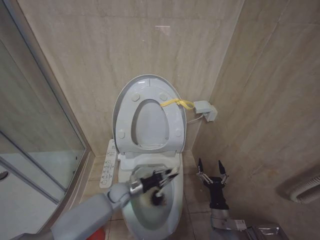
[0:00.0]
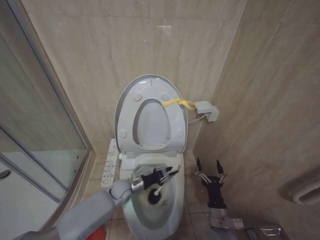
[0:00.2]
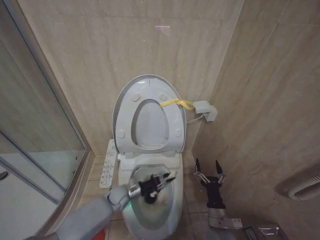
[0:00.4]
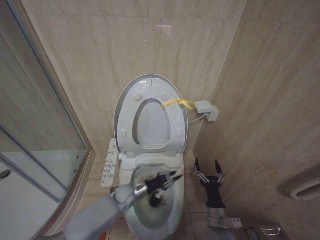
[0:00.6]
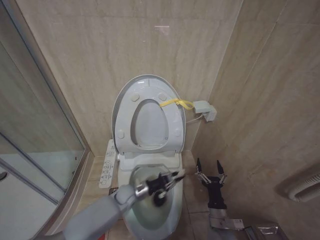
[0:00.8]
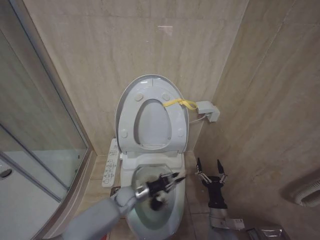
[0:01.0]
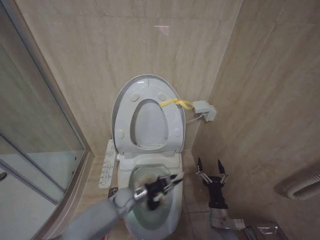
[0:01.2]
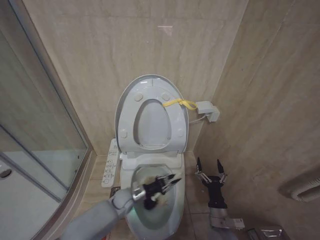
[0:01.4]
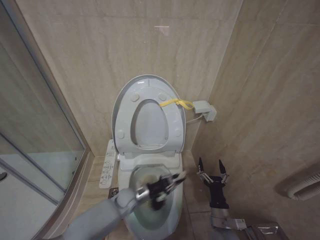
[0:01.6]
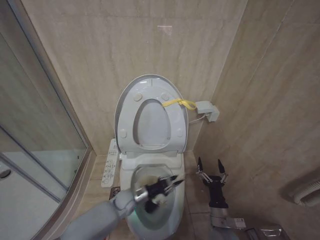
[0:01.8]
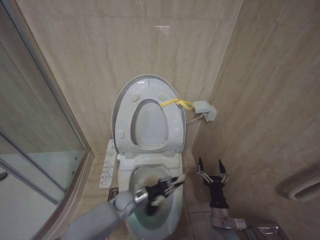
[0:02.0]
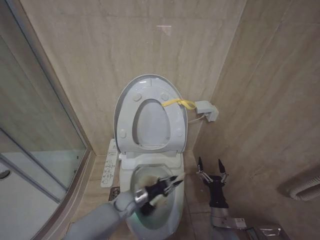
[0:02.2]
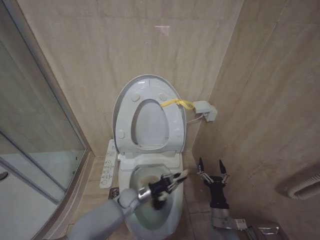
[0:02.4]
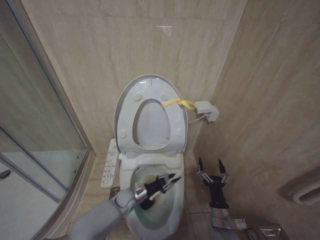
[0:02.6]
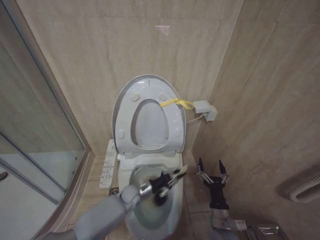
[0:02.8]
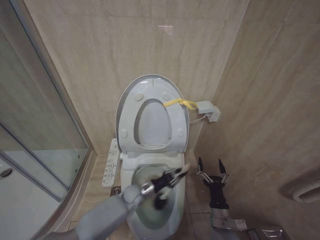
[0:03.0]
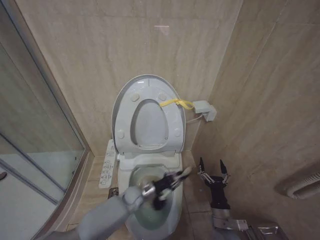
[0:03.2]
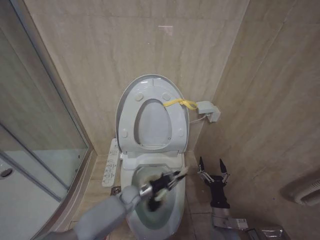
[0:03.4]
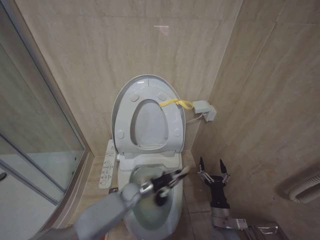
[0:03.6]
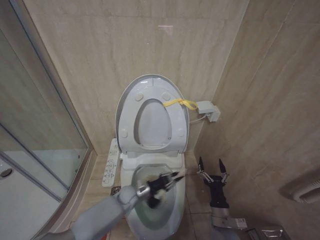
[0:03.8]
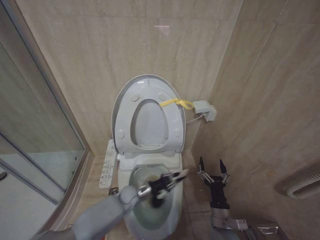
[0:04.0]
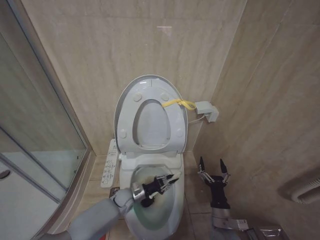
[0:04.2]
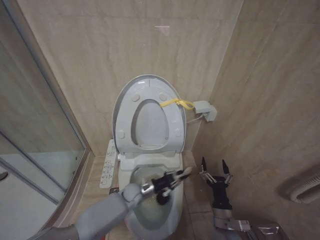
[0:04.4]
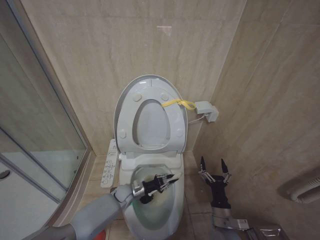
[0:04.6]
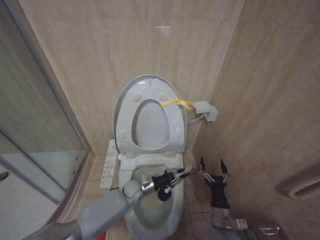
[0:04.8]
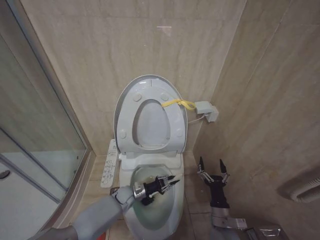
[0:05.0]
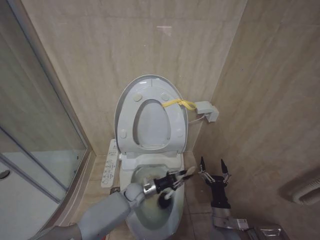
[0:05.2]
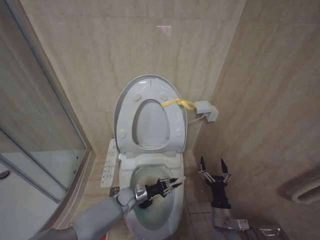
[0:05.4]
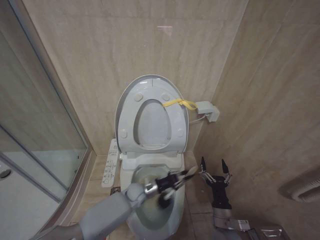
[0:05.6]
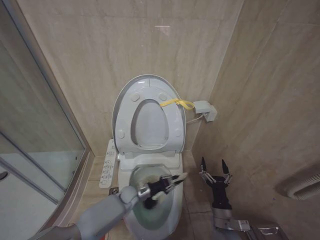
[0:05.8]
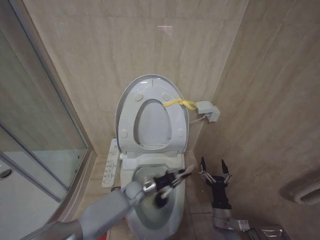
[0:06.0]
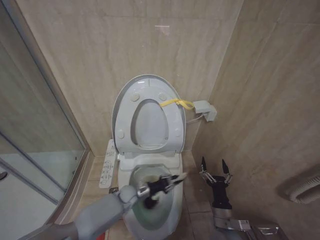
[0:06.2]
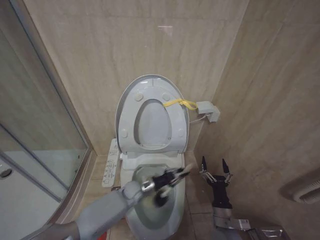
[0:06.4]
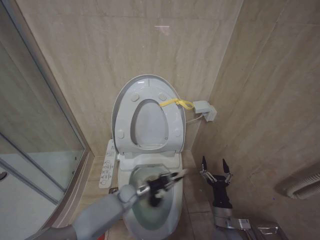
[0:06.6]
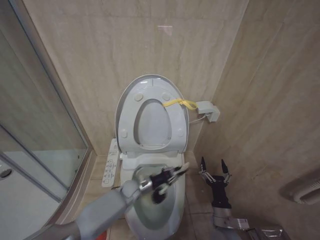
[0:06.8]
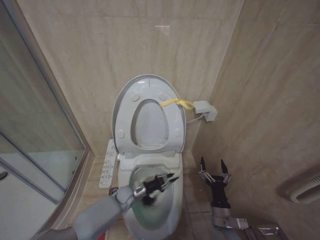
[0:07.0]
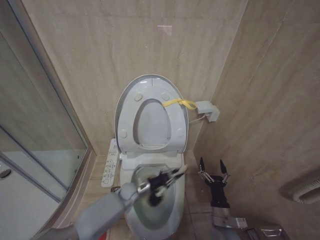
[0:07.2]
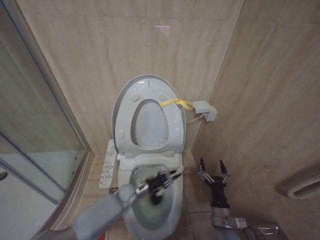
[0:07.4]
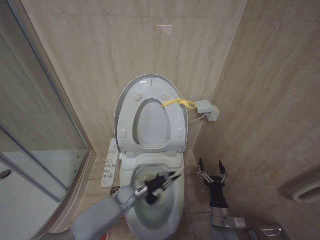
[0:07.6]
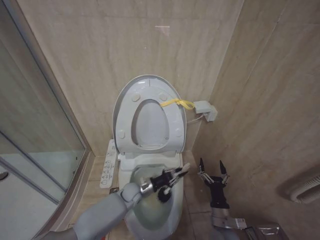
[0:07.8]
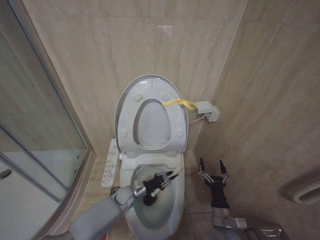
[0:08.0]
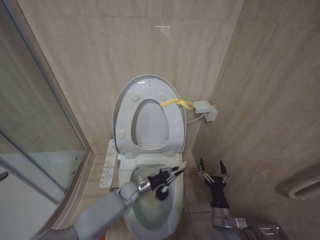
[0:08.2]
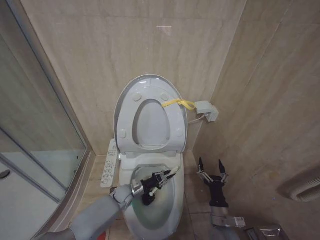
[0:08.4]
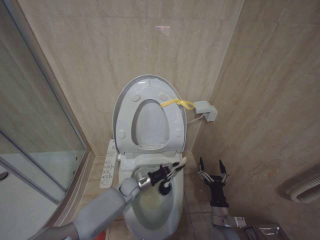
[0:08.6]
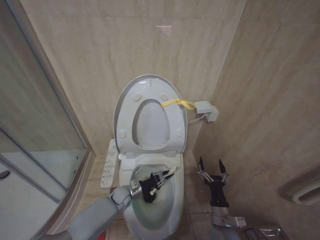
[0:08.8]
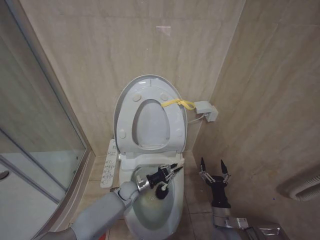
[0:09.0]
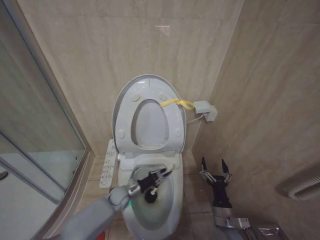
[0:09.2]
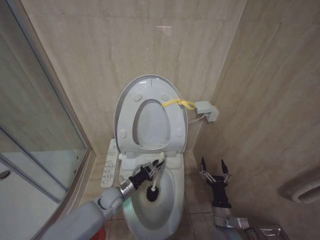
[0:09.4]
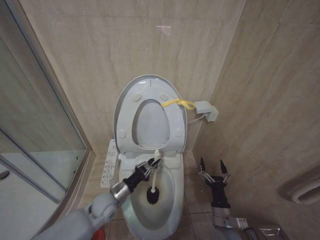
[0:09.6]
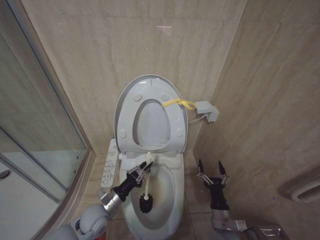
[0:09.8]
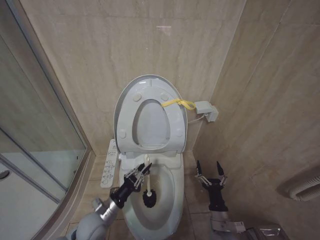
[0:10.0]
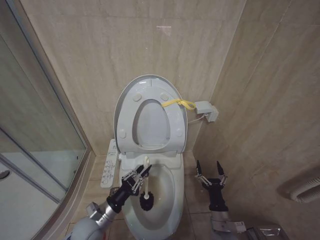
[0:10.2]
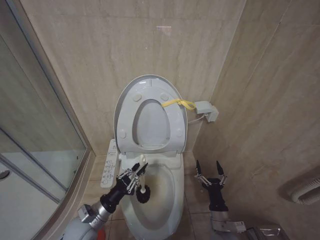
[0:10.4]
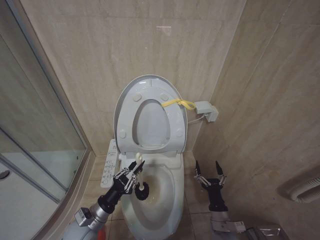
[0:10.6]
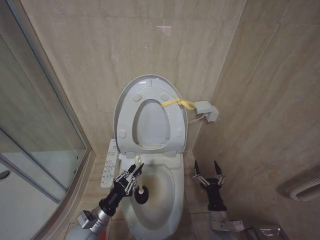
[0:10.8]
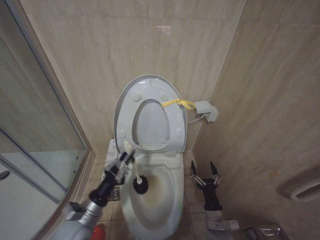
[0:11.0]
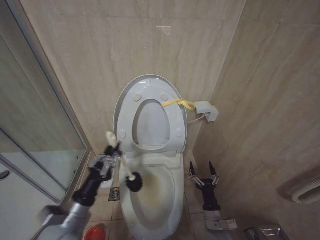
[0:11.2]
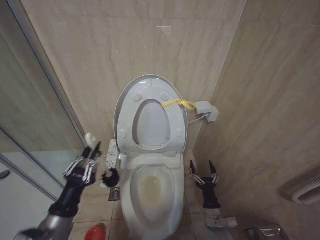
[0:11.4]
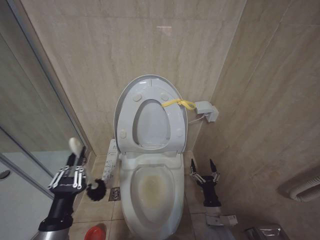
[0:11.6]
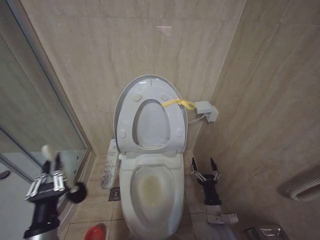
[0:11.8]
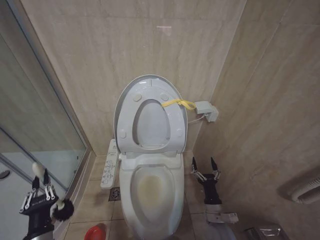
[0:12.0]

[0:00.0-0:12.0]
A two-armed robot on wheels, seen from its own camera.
Task of the whole recording: Open the toilet lid, clean the toilet bowl with a toilet brush, close the toilet lid, and flush.
0:00.0 to 0:01.6: The left gripper moves left and right over some 5 cm, changing direction 2 times.
0:01.6 to 0:03.0: The left gripper swings up and down, roughly 5 cm each way, with 4 reversals.
0:03.0 to 0:04.4: The left gripper swings left and right, about 5 cm each way, with 6 reversals.
0:06.0 to 0:07.6: The left gripper swings left and right, some 5 cm each way, with 2 reversals.
0:07.6 to 0:09.0: The left gripper swings up and down, roughly 5 cm each way, with 5 reversals.
0:09.0 to 0:10.4: The left gripper travels backward, to the left and upward by about 20 cm.
0:10.4 to 0:12.0: The left gripper moves backward and upward, roughly 15 cm.

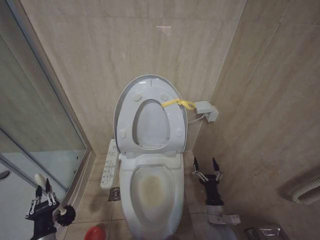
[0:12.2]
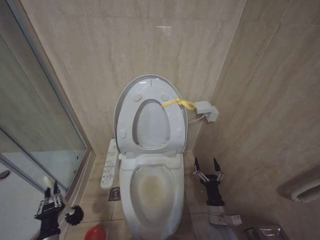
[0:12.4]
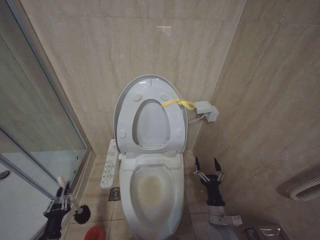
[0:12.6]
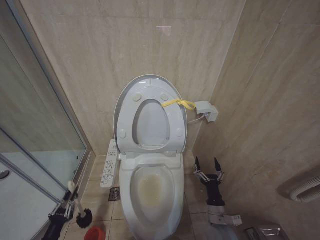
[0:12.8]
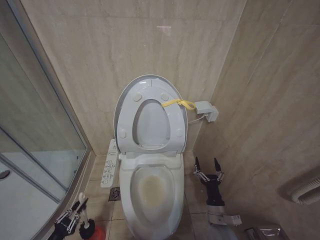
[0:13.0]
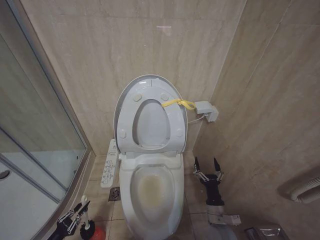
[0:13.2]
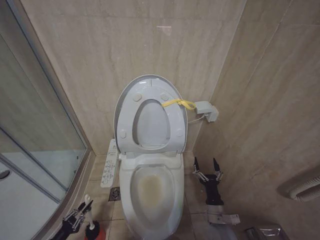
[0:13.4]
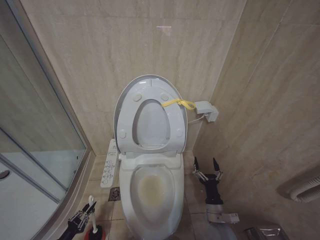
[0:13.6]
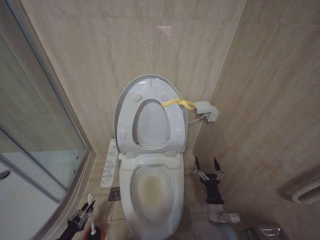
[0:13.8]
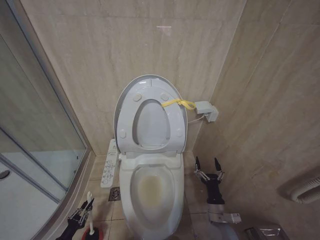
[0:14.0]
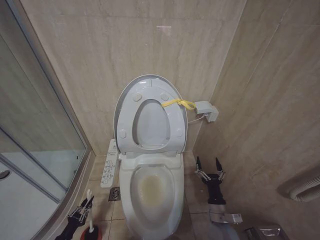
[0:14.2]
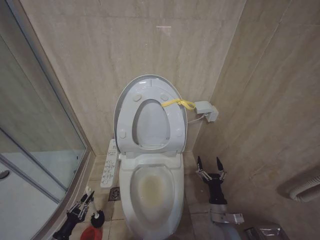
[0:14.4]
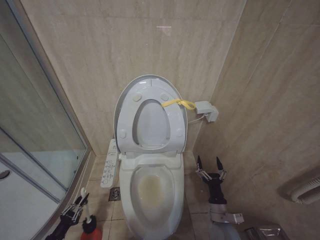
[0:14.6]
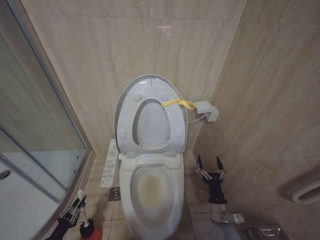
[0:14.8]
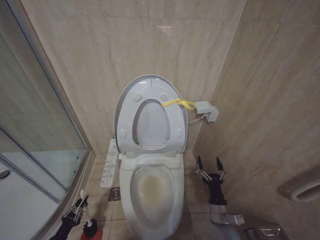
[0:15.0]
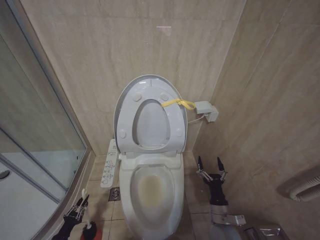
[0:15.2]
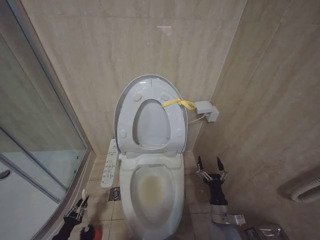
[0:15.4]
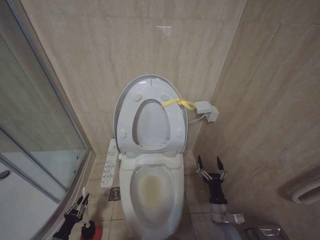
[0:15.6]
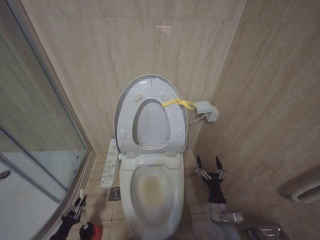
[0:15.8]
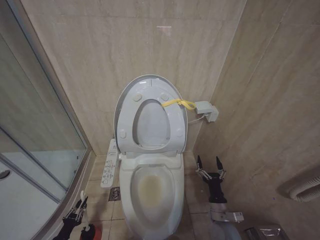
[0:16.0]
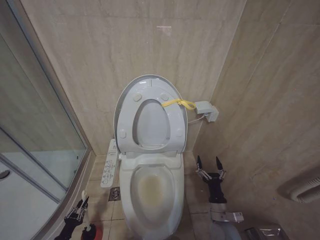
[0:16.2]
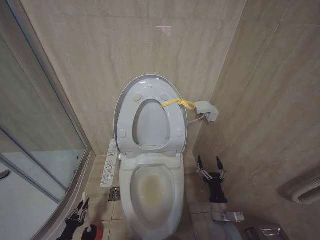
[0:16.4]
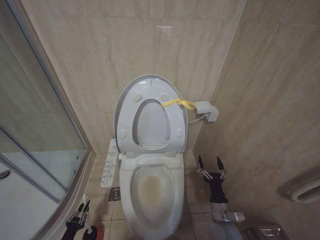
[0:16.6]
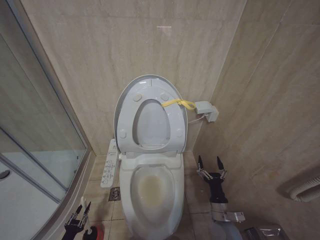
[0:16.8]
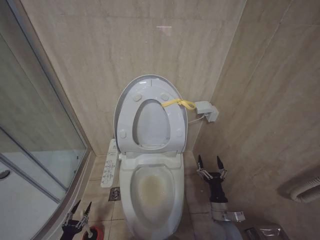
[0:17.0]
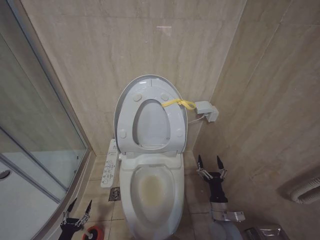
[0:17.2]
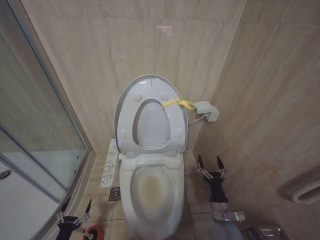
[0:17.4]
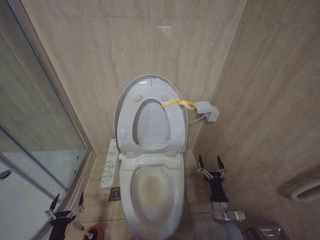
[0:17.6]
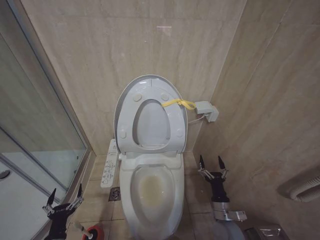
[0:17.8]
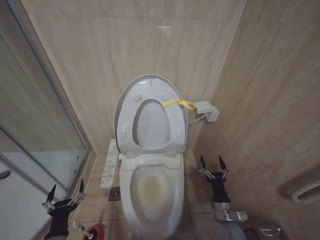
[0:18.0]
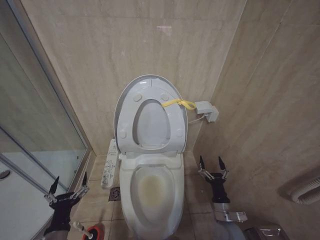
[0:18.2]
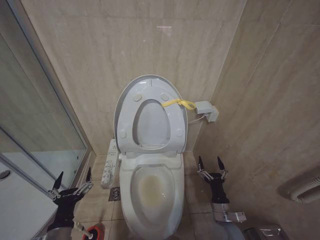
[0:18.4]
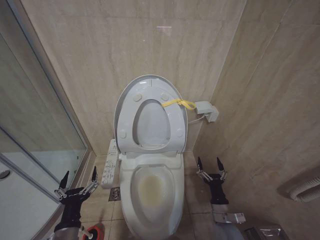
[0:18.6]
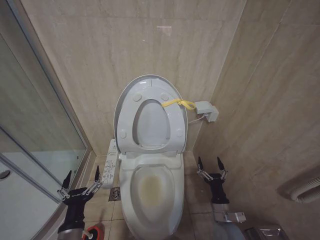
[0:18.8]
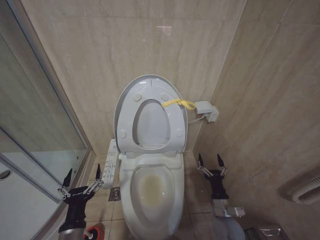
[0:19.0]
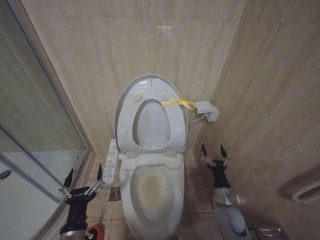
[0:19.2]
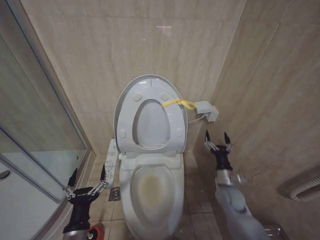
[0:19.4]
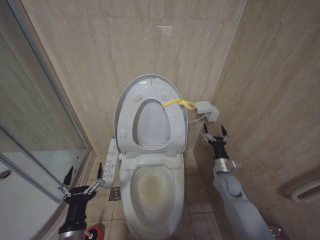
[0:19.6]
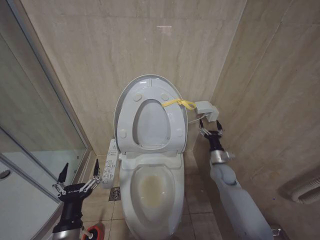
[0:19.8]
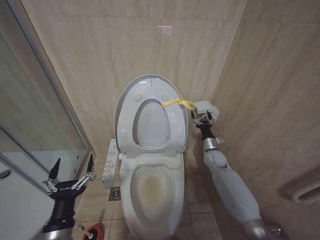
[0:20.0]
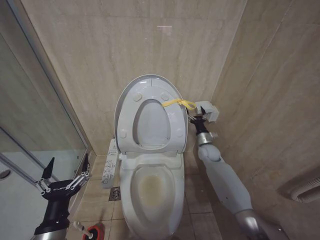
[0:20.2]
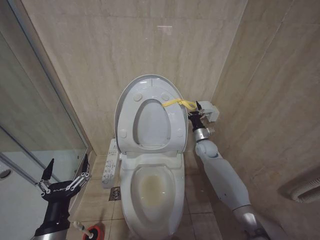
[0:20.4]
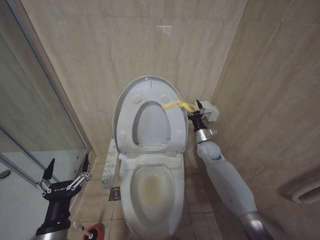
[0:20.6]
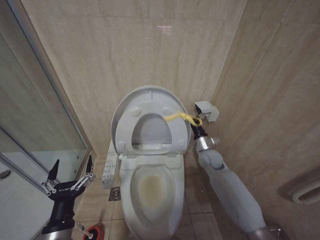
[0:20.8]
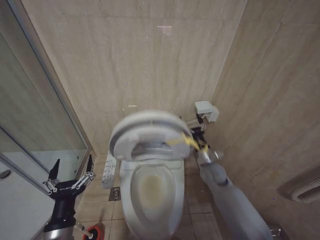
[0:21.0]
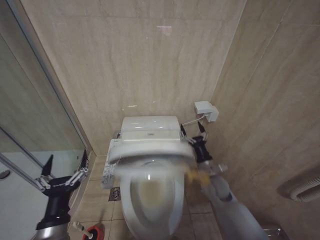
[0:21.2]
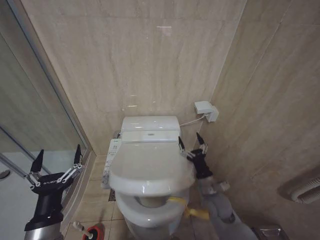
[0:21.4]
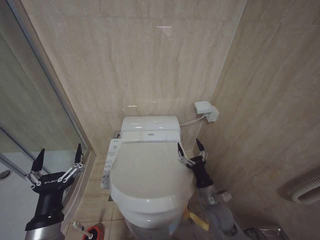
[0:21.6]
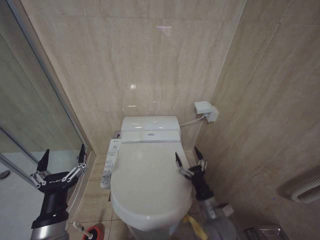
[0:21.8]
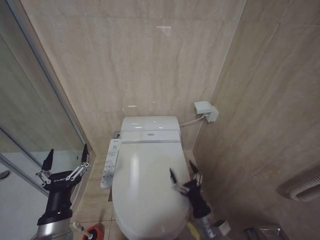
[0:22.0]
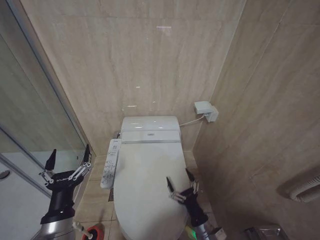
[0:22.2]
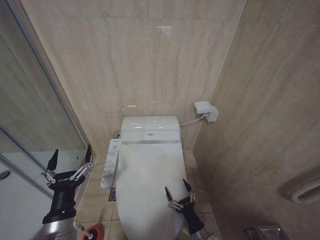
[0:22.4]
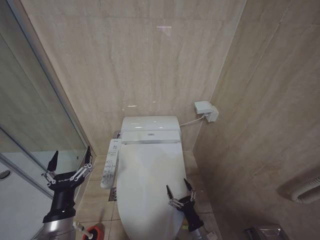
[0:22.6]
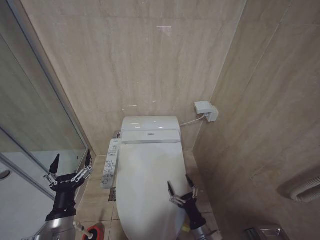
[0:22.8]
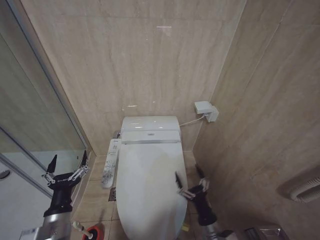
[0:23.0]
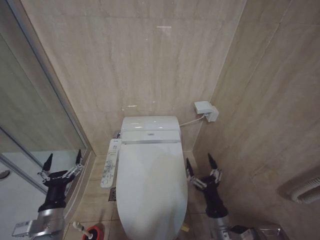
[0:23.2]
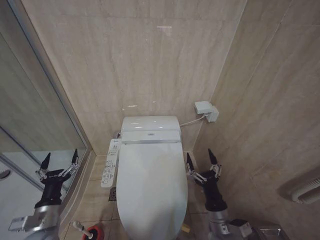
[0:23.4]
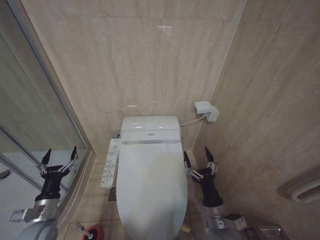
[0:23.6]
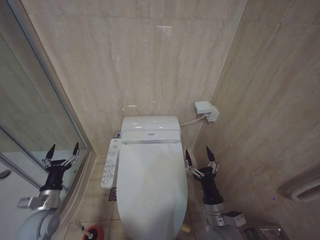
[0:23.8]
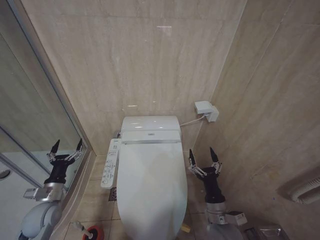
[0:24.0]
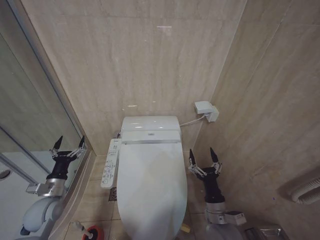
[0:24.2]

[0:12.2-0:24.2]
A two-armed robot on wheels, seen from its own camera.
Task of the whole recording: Open the toilet lid, clean the toilet bowl with a toilet brush, close the toilet lid, and flush.
0:12.2 to 0:13.8: The left gripper moves downward and to the left, some 25 cm.
0:13.8 to 0:16.6: There are only small adjustments of the grippers.
0:16.6 to 0:18.2: The left gripper shifts roughly 30 cm upward and to the right, and opens up.
0:18.2 to 0:19.8: The right gripper shifts approximately 20 cm forward and upward; the left gripper travels upward and to the right by approximately 10 cm.
0:19.8 to 0:21.2: The right gripper is displaced to the left by some 5 cm, and goes forward and returns, roughly 10 cm each way.
0:21.2 to 0:22.6: The right gripper is displaced backward and downward by about 25 cm.
0:22.6 to 0:24.2: The left gripper shifts approximately 25 cm forward, to the left and downward, while the right gripper is displaced upward by approximately 15 cm.
